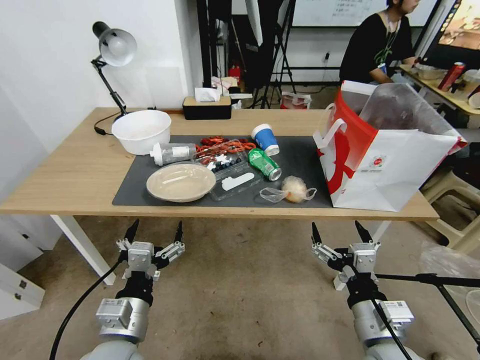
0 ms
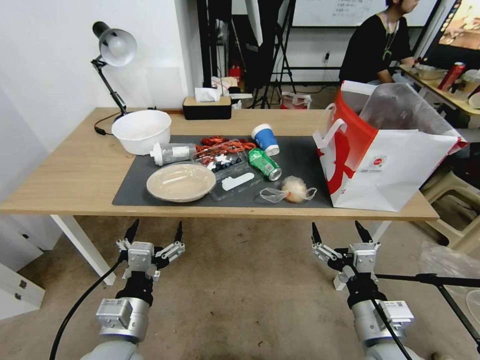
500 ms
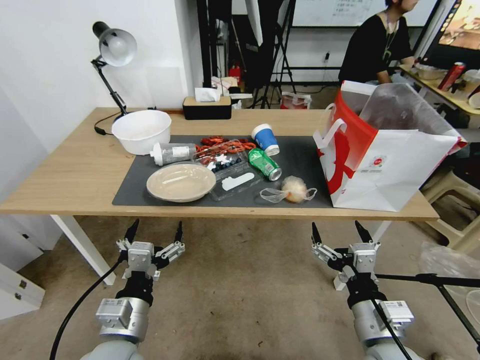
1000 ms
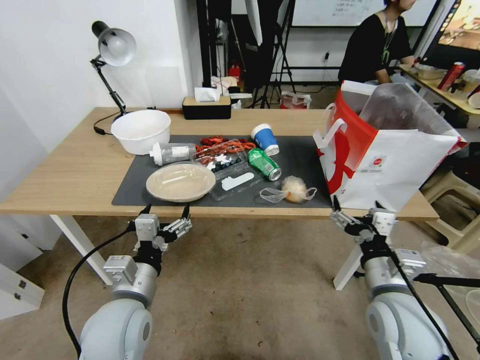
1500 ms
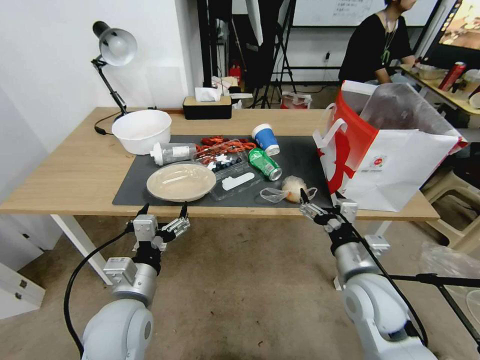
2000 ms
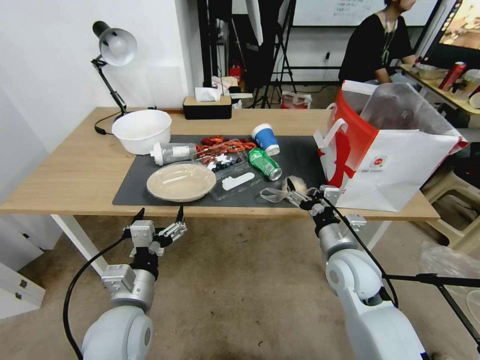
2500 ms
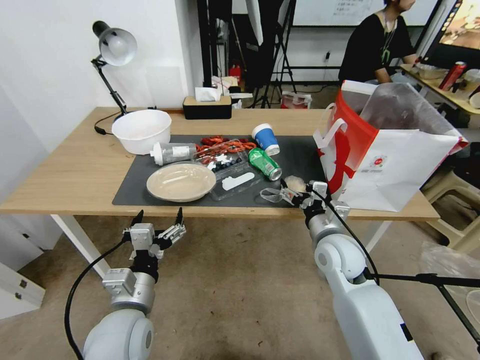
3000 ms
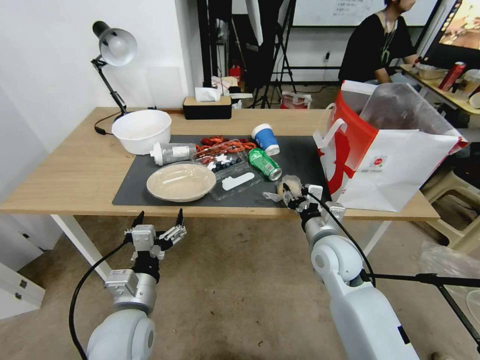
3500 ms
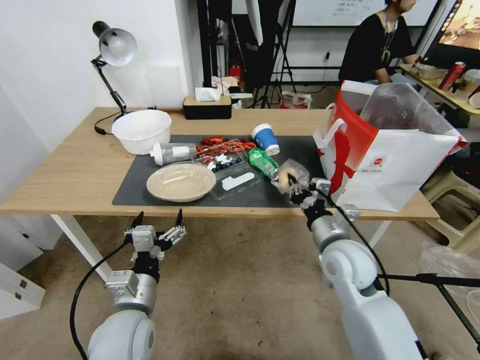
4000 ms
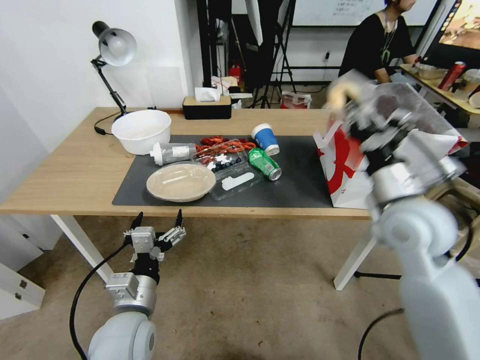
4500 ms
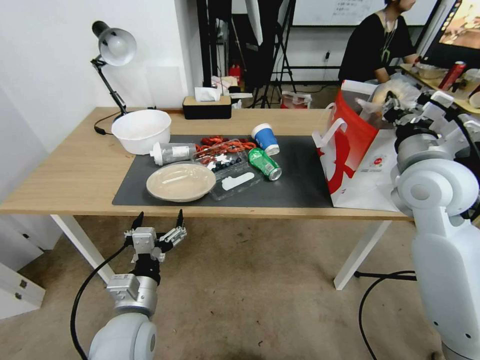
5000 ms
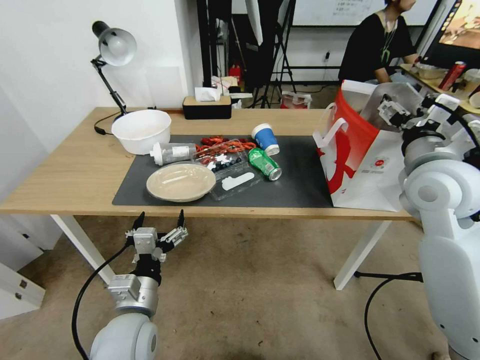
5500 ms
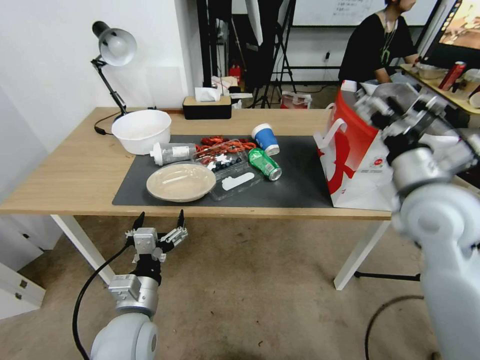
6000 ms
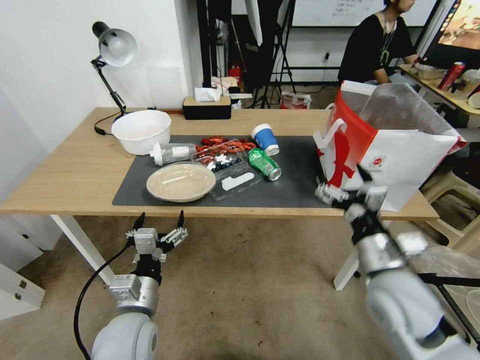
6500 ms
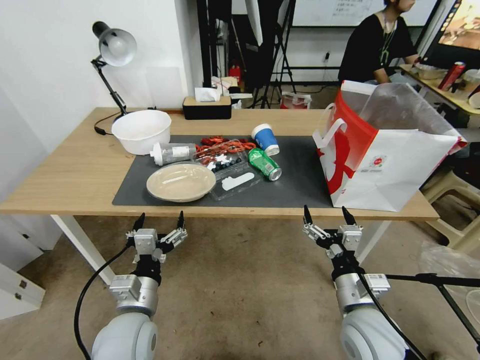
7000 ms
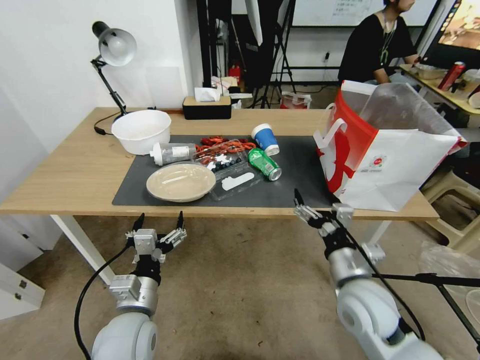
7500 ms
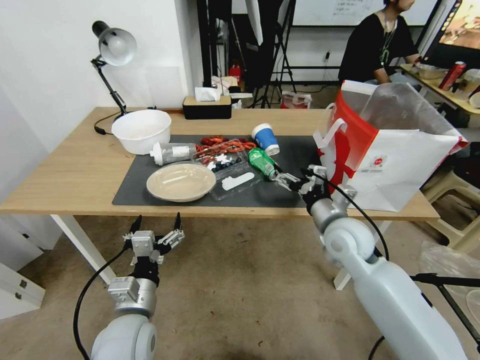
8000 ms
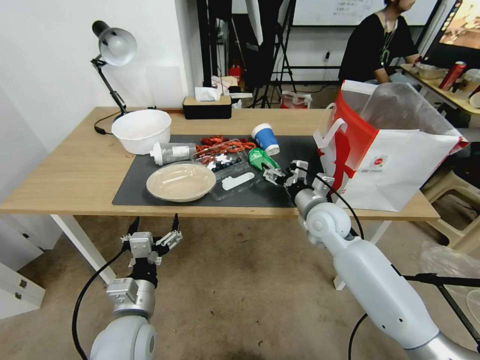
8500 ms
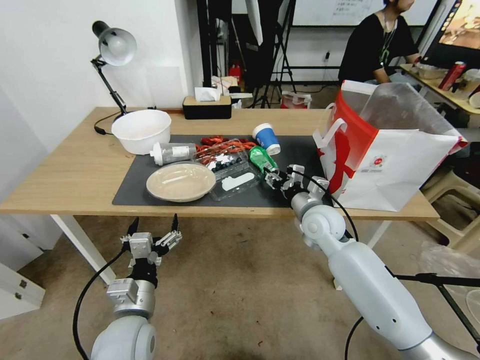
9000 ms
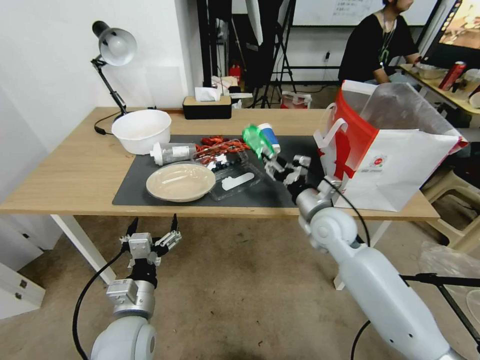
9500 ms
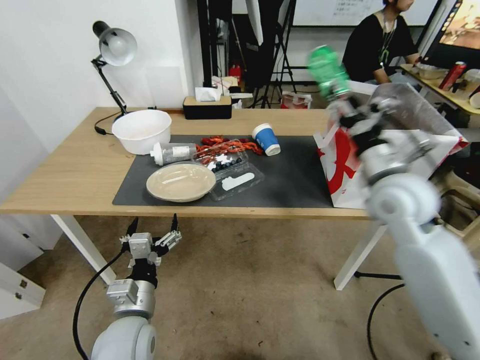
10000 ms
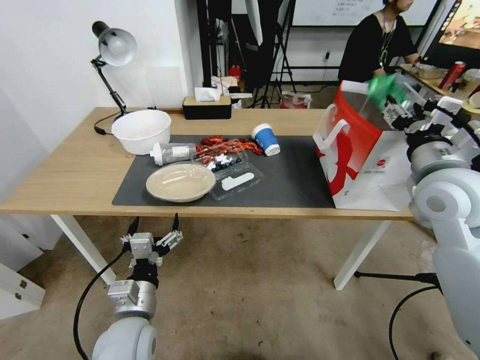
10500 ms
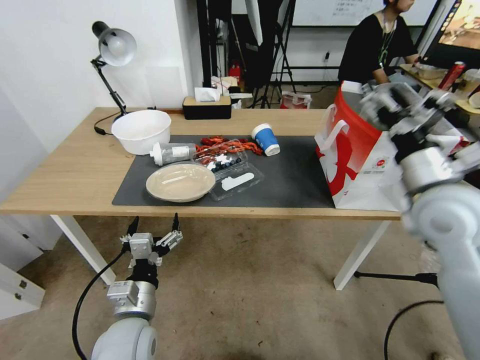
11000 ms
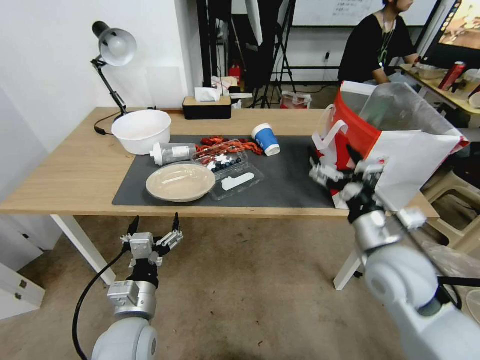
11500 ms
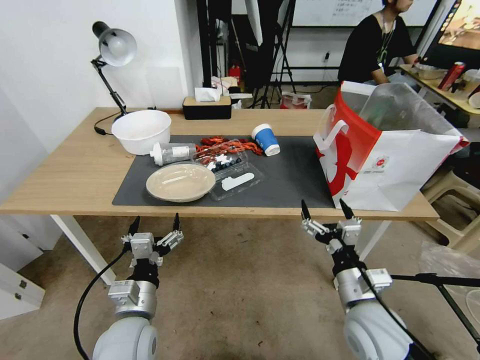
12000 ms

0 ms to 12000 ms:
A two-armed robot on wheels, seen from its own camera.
2000 ms to 4000 ms: The right gripper moves forward, roughly 5 cm, and closes.
4000 ms to 6000 ms: The right gripper is displaced upward and to the right by about 20 cm, and opens its fingers.
6000 ms to 8000 ms: The right gripper travels downward and to the left by roughly 15 cm.
8000 ms to 10000 ms: The right gripper is displaced upward and to the right by approximately 15 cm, and closes.
10000 ms to 12000 ms: The right gripper is displaced downward and backward by roughly 25 cm, and opens up.

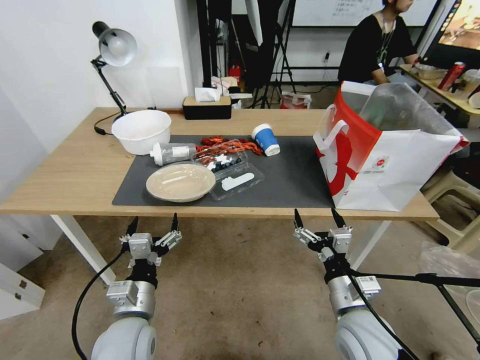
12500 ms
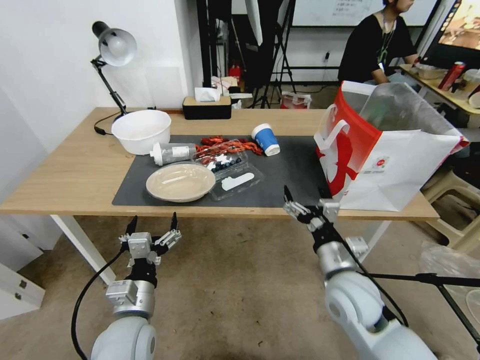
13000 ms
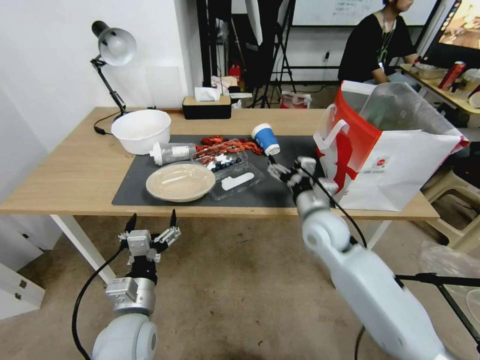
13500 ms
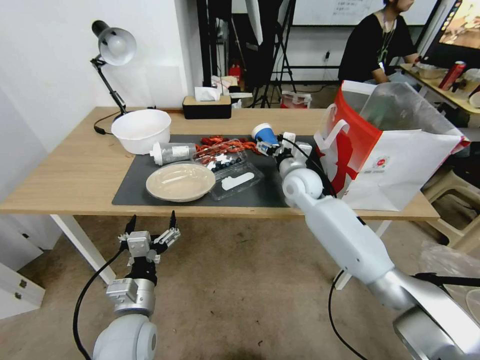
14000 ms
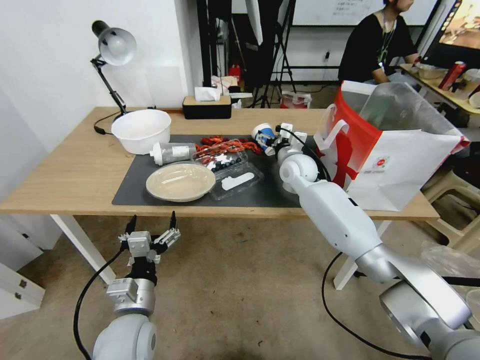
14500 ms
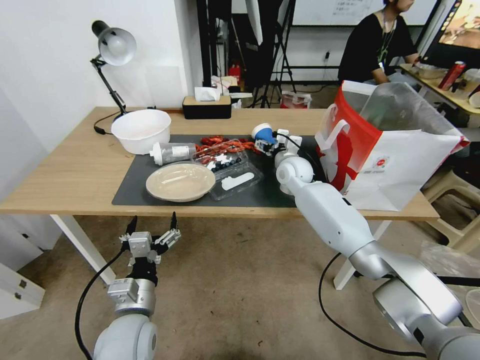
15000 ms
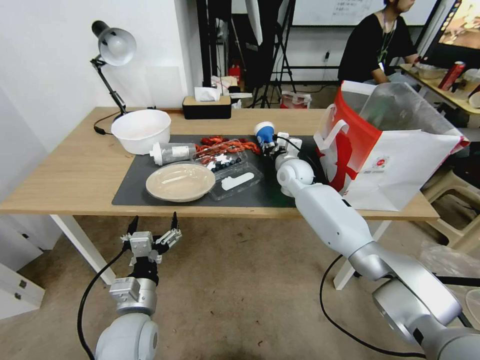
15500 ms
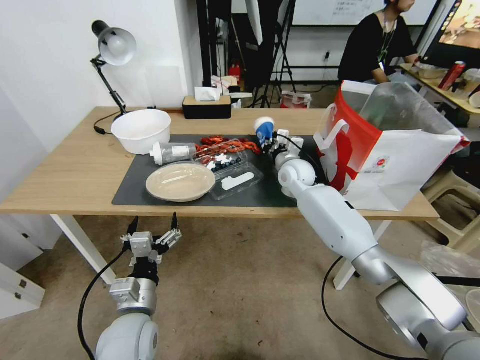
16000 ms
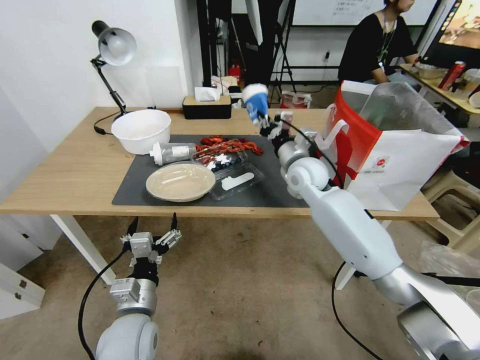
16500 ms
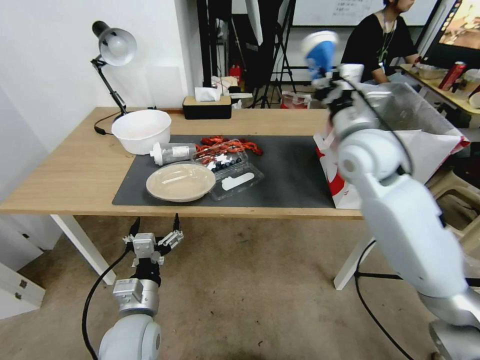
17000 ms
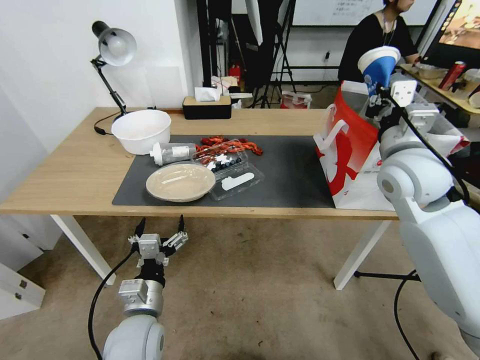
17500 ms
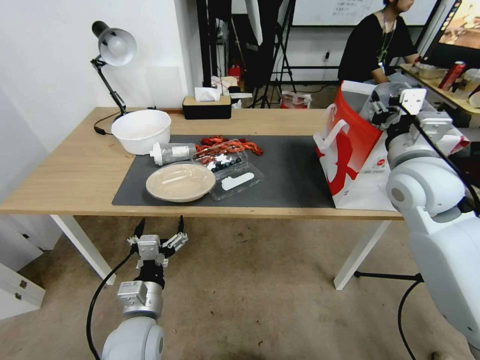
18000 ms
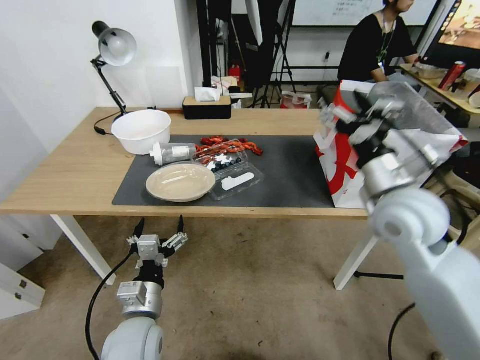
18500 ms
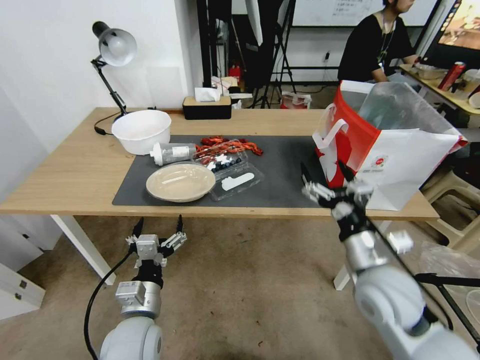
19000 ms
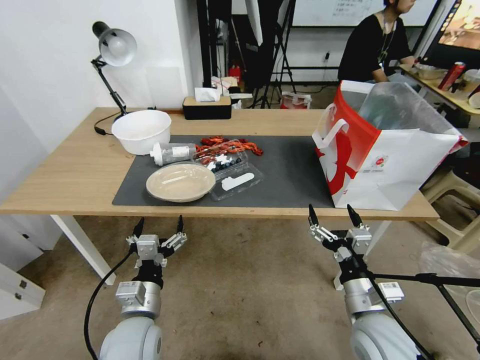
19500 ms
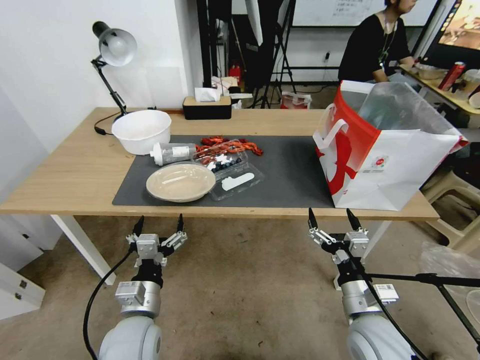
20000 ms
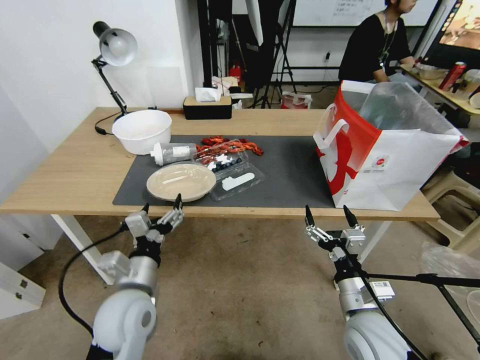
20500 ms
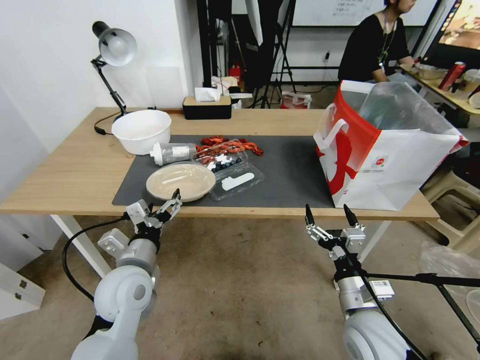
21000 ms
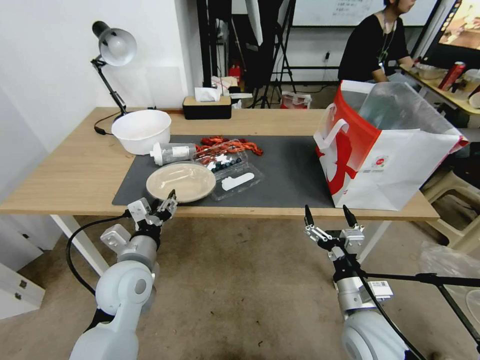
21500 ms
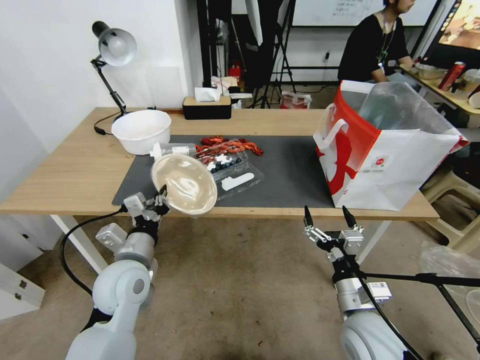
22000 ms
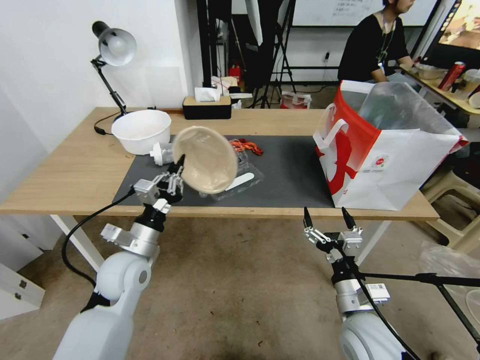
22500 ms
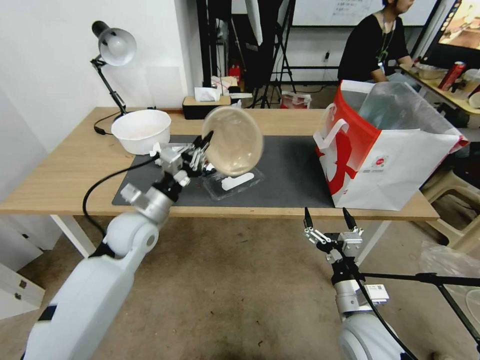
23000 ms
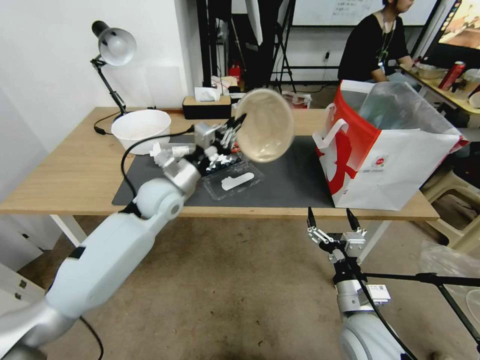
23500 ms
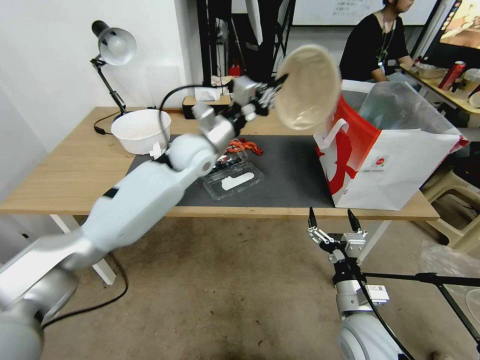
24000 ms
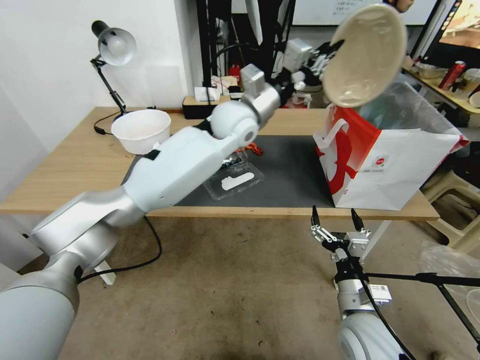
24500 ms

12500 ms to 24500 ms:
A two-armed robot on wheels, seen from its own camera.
12500 ms to 14500 ms: The right gripper goes roughly 35 cm forward.
14500 ms to 16500 ms: The right gripper travels backward by some 5 cm, and closes up.
16500 ms to 18500 ms: The right gripper travels backward, to the right and upward by some 20 cm, and opens.
18500 ms to 20500 ms: The left gripper shifts by roughly 5 cm, while the right gripper heads downward and backward, covering some 25 cm.
20500 ms to 22500 ms: The left gripper shifts about 10 cm forward, and closes.
22500 ms to 24500 ms: The left gripper goes roughly 40 cm forward, to the right and upward.

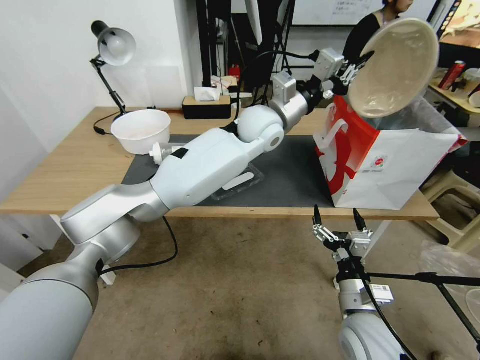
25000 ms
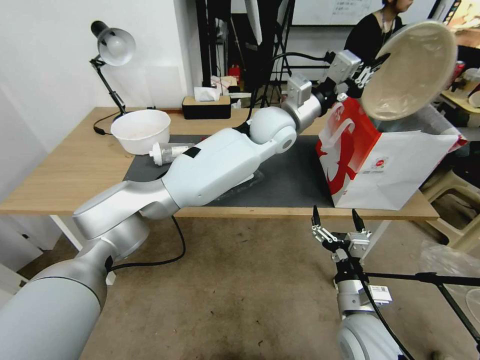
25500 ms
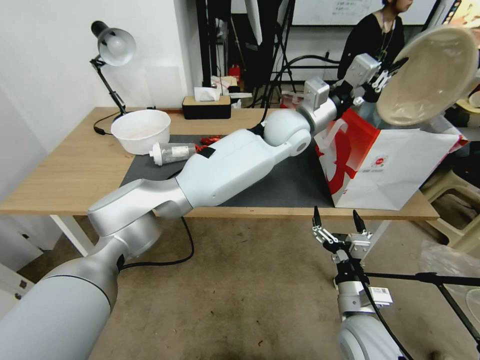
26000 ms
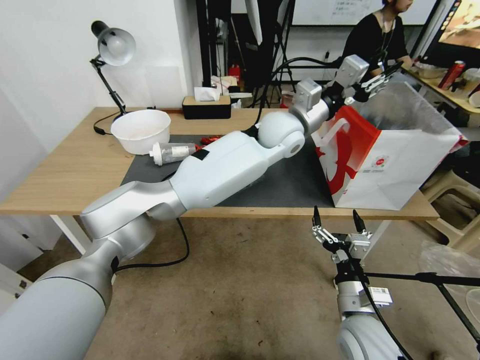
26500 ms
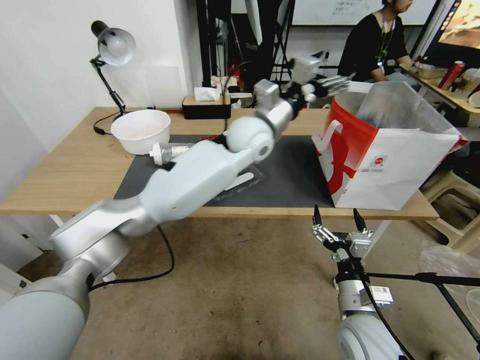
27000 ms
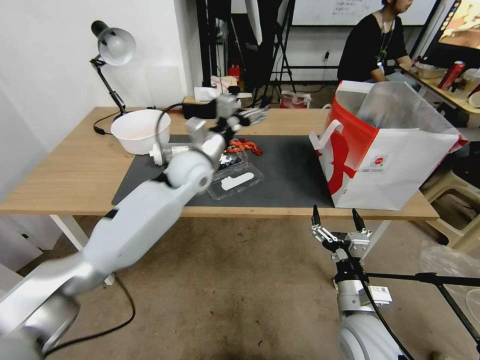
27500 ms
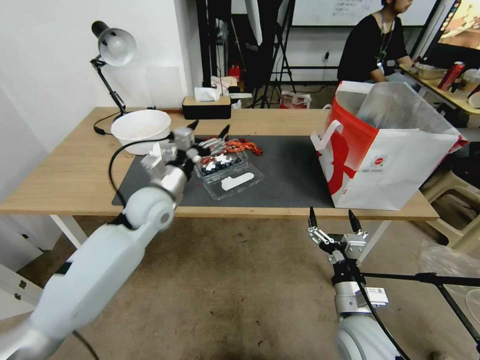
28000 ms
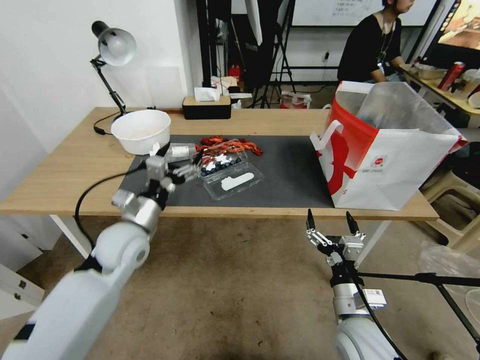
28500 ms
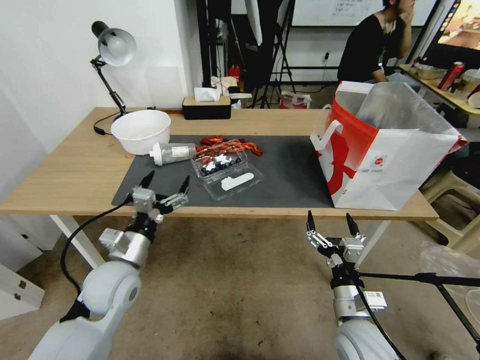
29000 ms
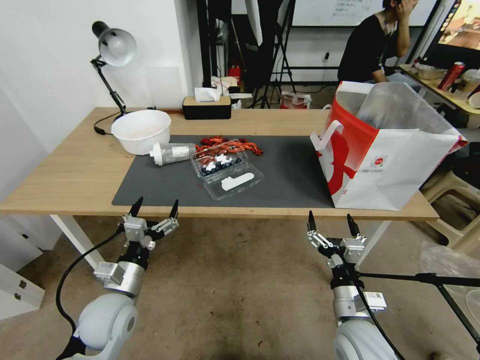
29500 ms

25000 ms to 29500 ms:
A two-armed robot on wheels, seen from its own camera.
25000 ms to 27000 ms: The left gripper opens up.
27000 ms to 29500 ms: The left gripper heads backward, to the left and downward, covering approximately 50 cm.
